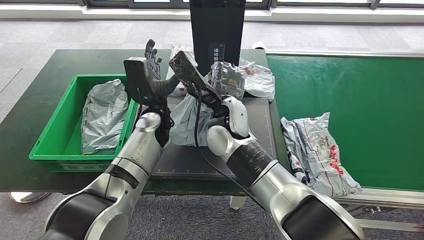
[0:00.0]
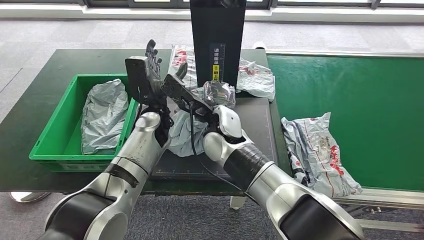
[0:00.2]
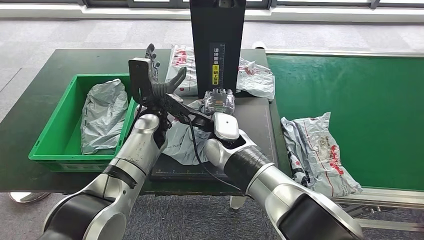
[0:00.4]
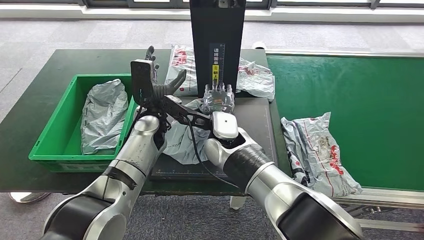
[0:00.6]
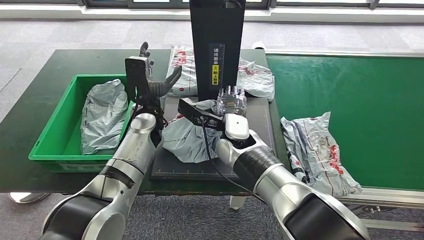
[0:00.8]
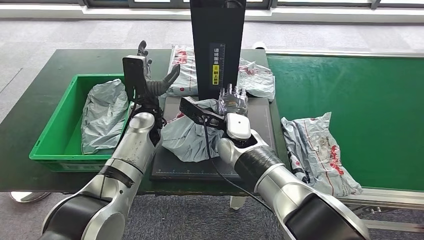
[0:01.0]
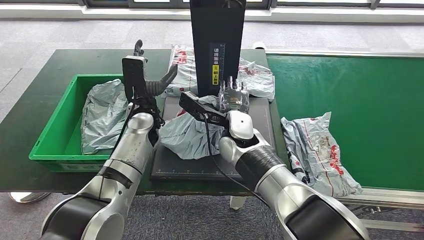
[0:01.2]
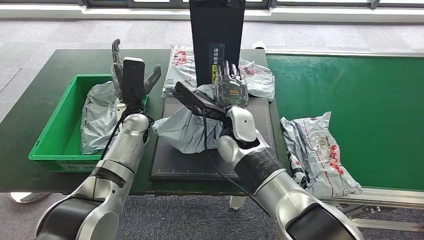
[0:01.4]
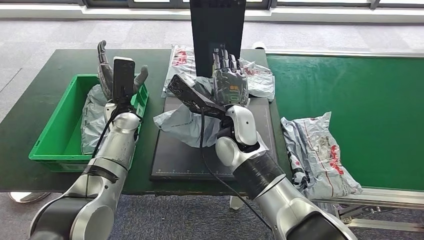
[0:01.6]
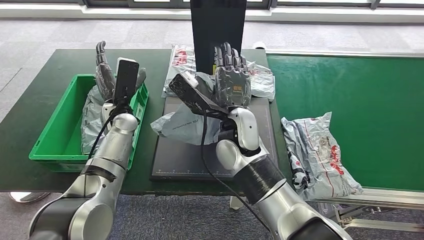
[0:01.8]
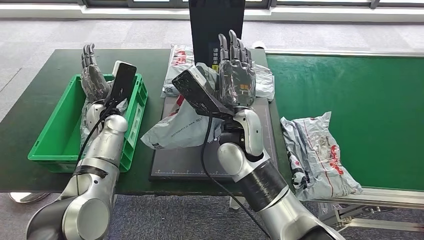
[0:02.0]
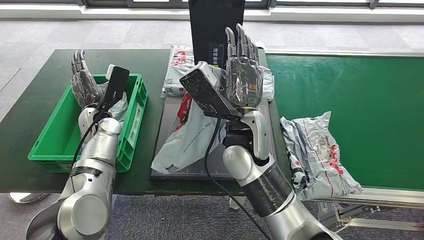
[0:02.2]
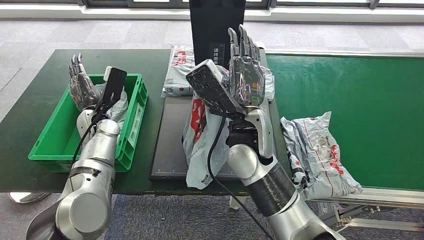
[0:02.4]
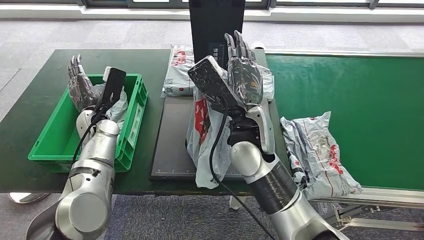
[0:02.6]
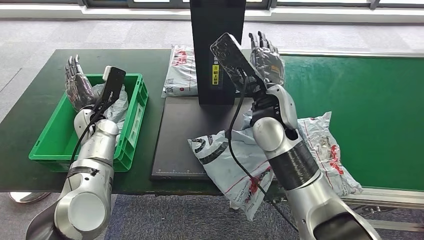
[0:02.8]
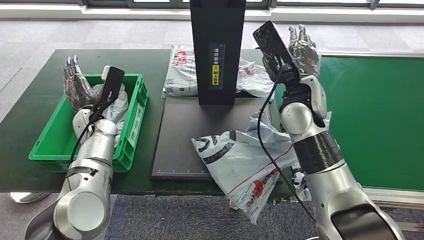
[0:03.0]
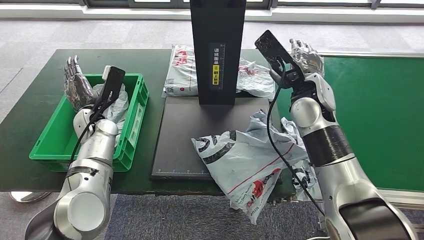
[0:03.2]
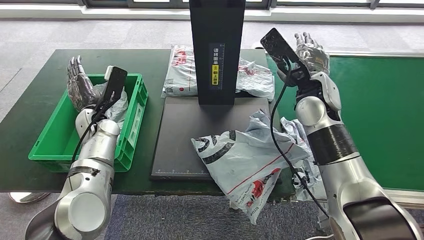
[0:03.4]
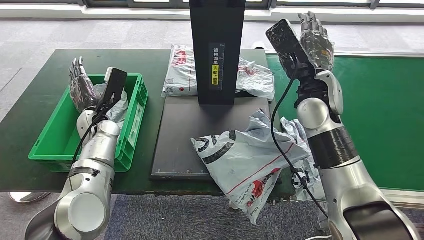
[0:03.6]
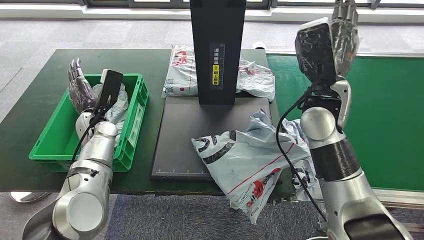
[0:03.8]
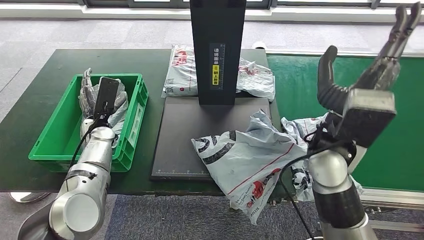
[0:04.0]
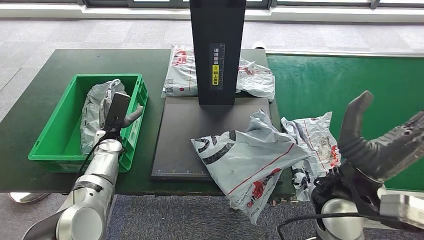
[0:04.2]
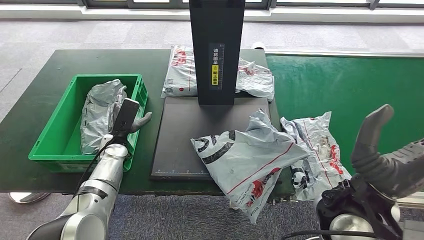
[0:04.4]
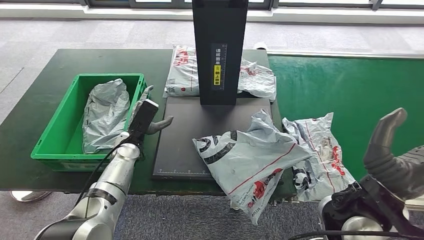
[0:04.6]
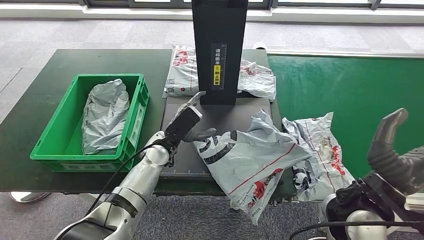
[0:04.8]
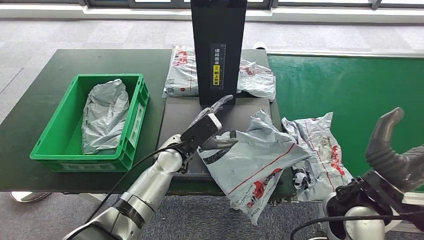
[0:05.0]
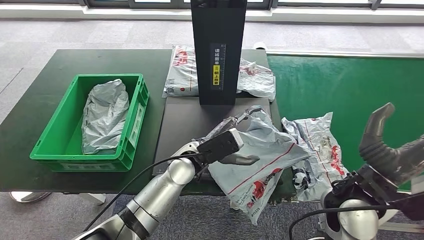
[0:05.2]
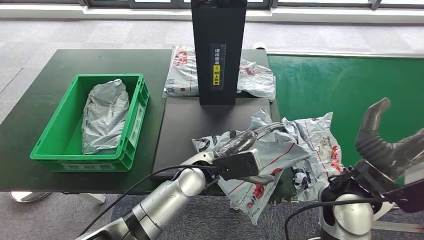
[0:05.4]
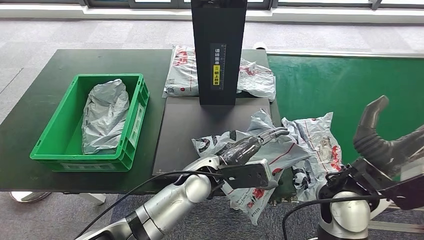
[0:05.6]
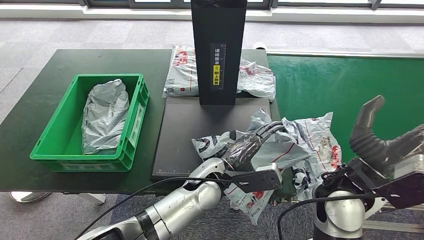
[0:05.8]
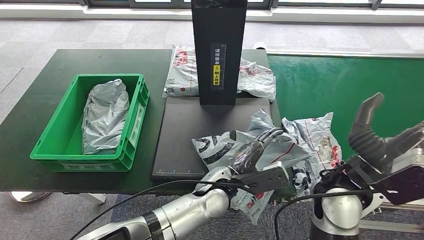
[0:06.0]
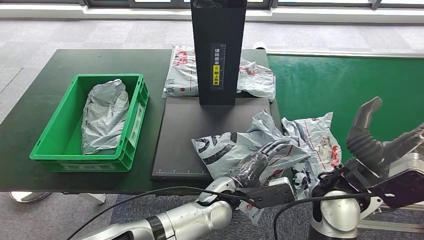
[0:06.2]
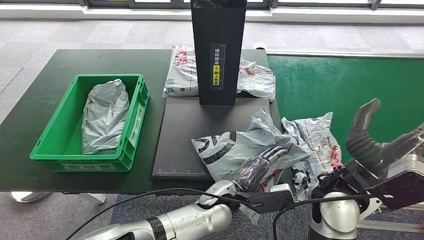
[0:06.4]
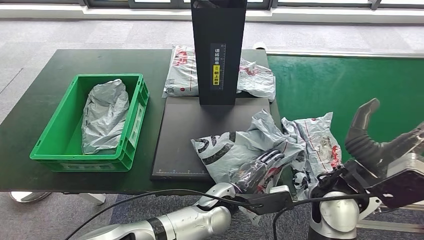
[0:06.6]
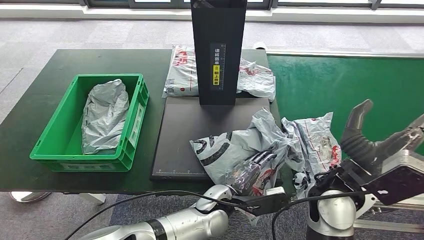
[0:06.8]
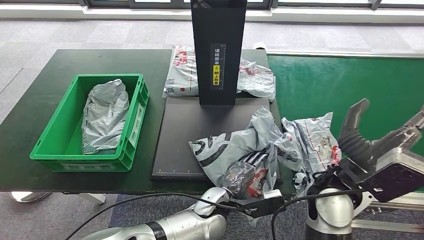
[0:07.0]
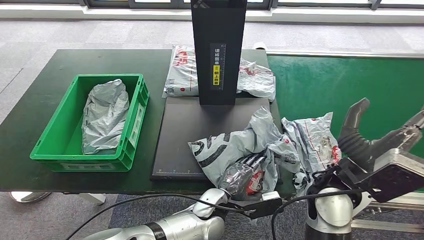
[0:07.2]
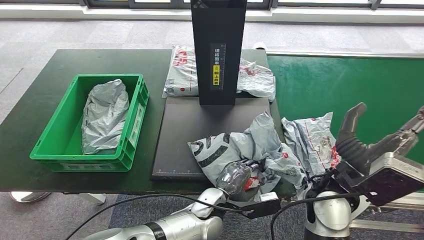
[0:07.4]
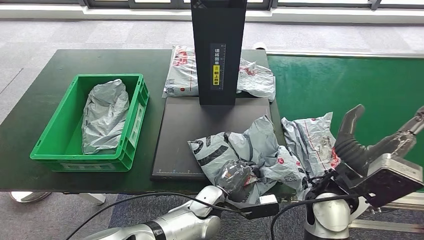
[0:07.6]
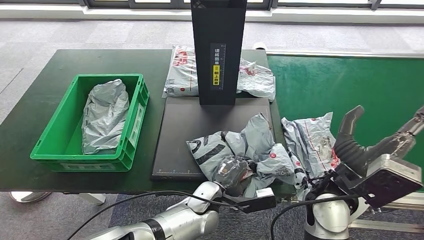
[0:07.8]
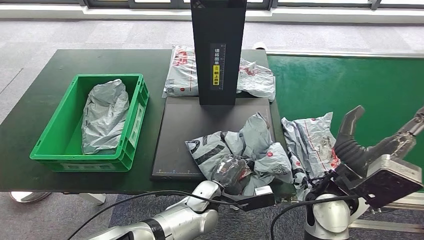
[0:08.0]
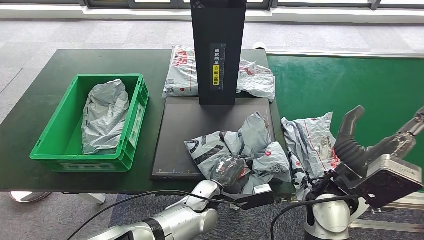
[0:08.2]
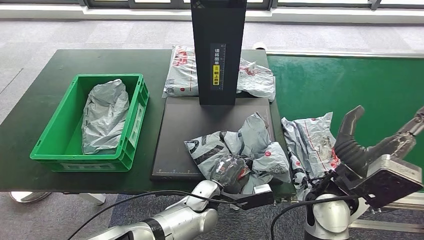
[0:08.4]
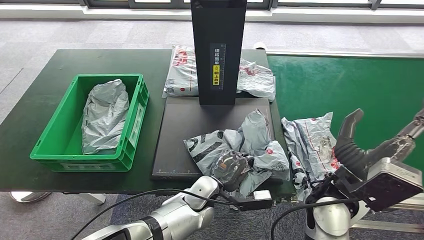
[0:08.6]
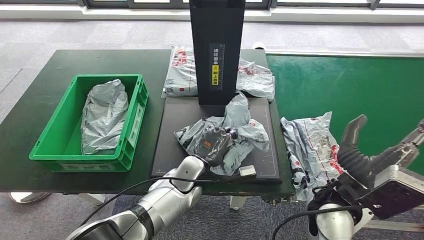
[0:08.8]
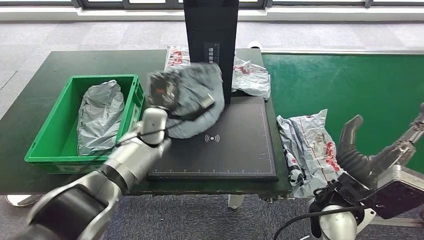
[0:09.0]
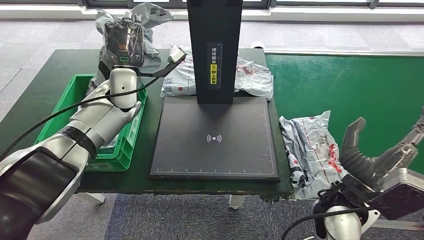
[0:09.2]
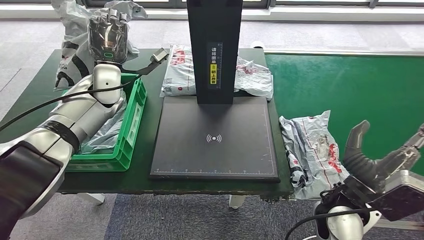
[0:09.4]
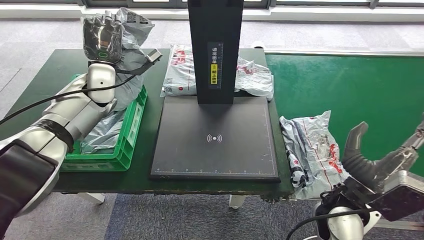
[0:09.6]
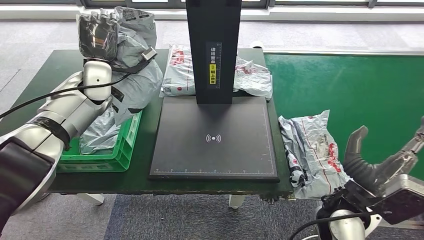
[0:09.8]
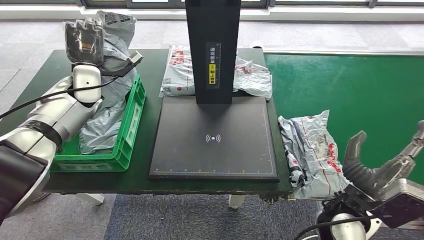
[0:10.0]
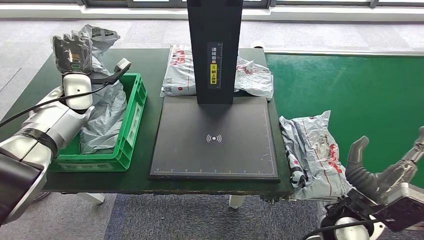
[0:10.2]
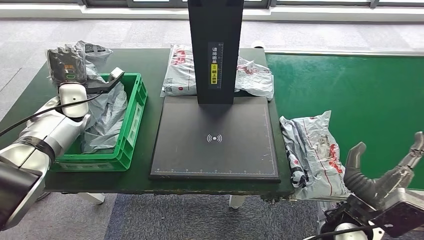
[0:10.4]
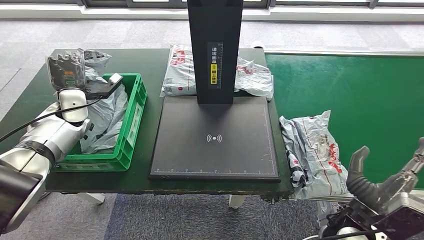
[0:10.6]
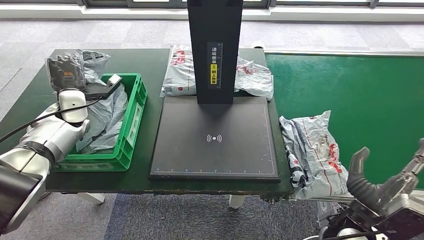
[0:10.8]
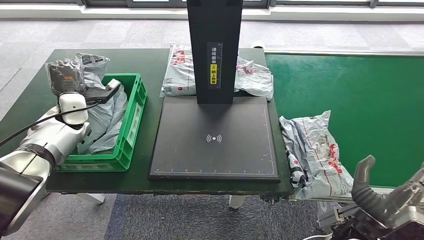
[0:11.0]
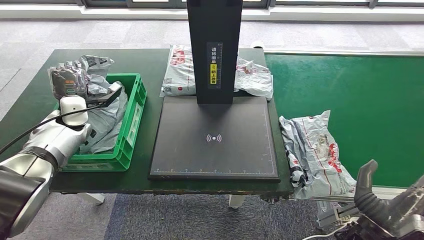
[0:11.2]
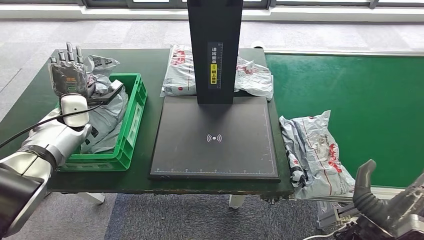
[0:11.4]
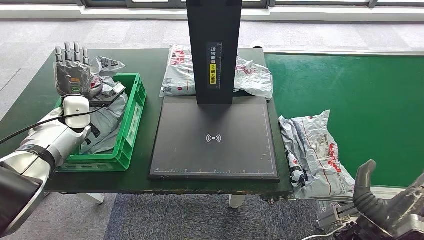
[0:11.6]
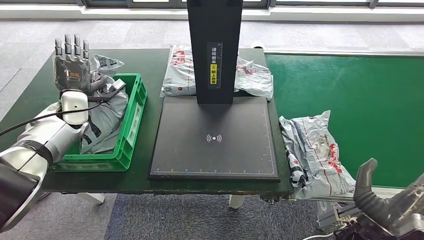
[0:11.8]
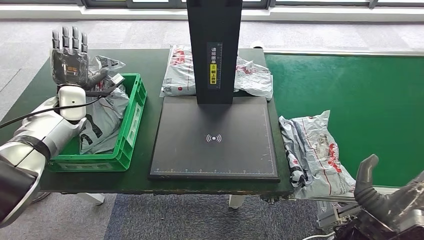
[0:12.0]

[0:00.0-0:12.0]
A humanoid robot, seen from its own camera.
Step, 0:01.4 to 0:09.2: Pick up the parcel from the inbound machine.
0:06.0 to 0:07.6: The left hand heads downward, covering approximately 5 cm.
0:10.4 to 0:12.0: There are only small adjustments of the hands.

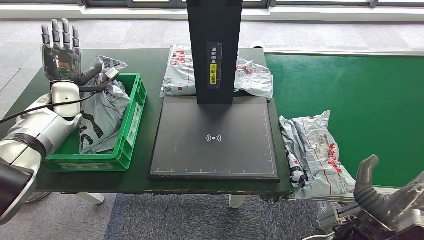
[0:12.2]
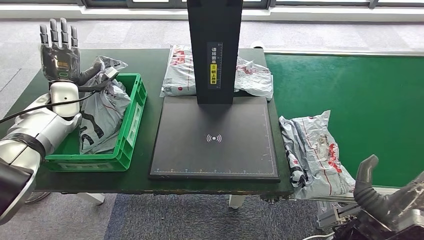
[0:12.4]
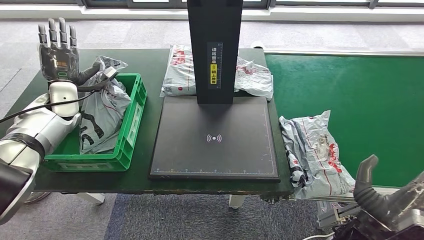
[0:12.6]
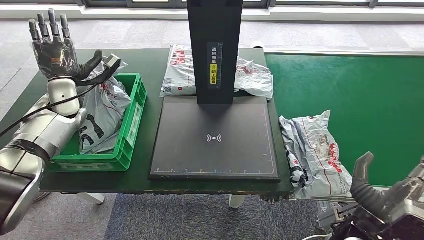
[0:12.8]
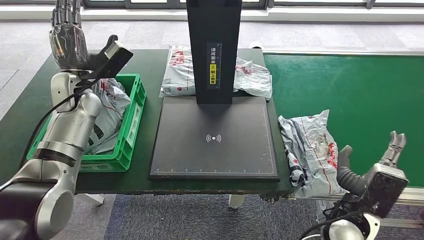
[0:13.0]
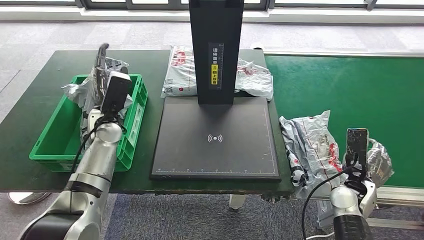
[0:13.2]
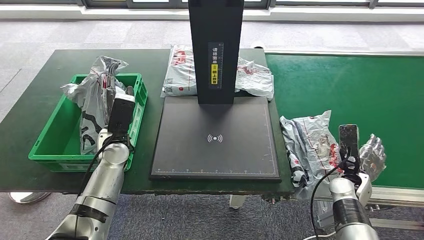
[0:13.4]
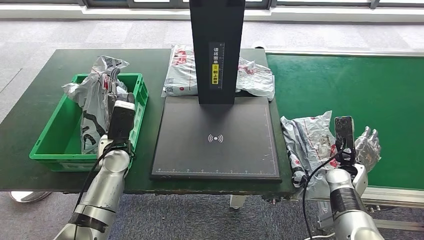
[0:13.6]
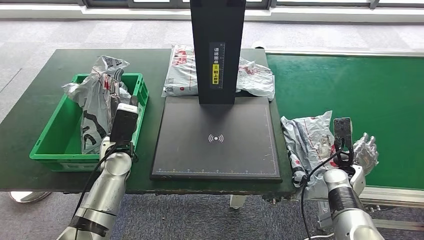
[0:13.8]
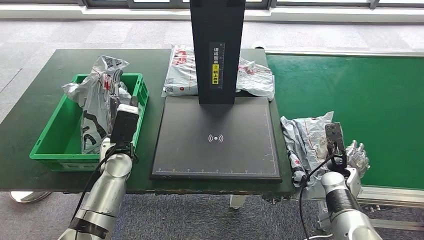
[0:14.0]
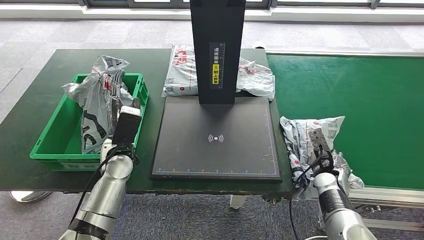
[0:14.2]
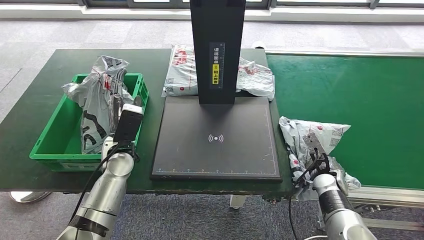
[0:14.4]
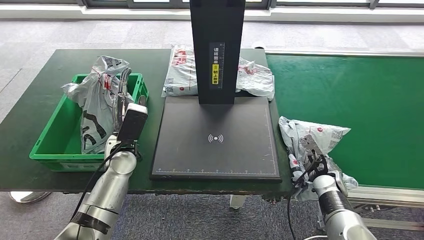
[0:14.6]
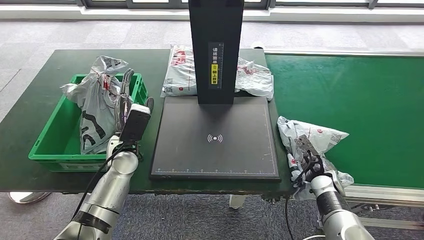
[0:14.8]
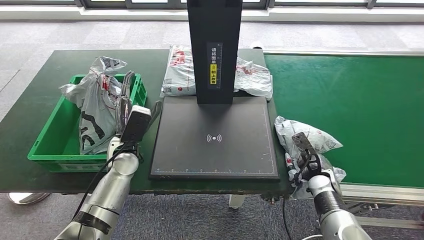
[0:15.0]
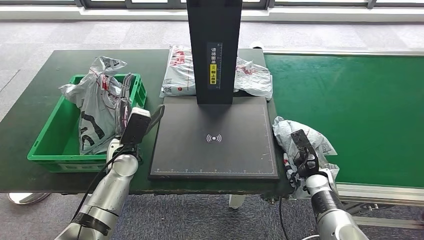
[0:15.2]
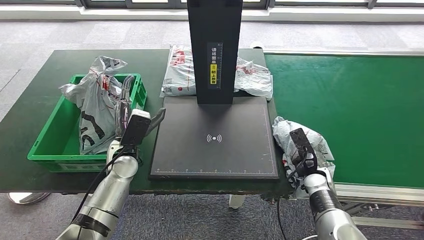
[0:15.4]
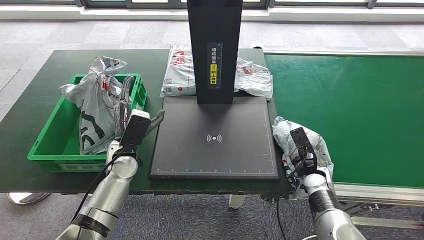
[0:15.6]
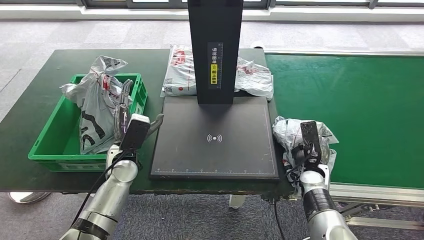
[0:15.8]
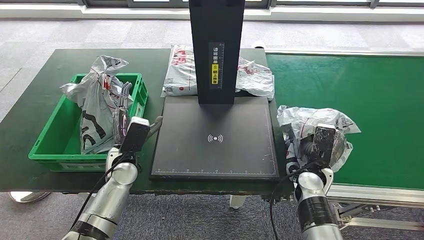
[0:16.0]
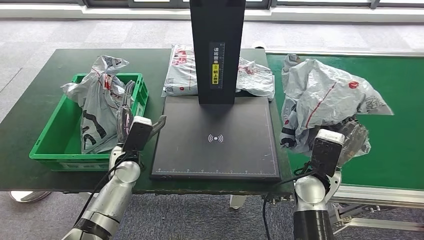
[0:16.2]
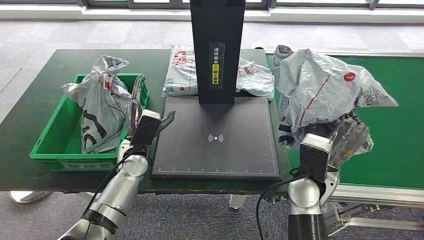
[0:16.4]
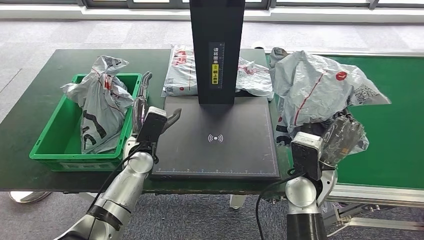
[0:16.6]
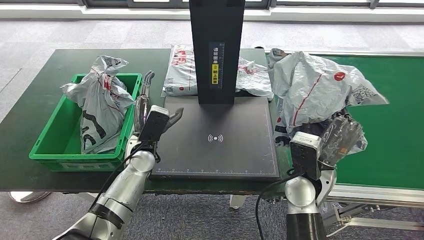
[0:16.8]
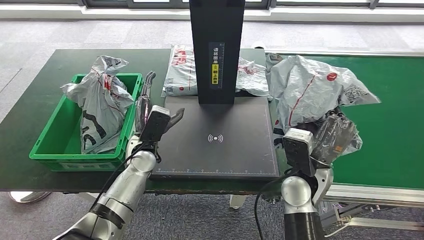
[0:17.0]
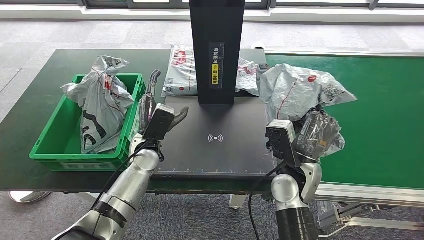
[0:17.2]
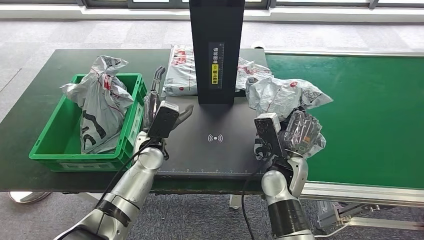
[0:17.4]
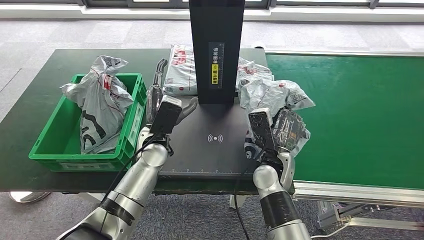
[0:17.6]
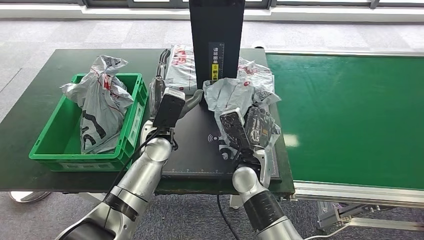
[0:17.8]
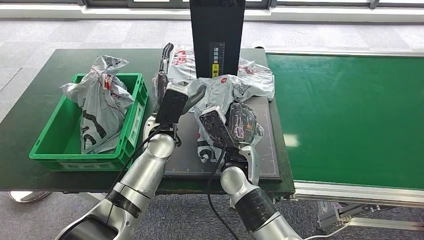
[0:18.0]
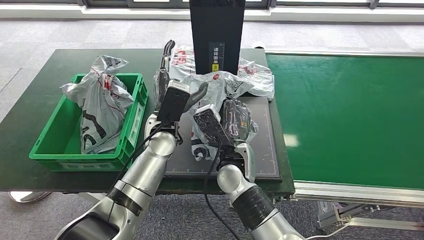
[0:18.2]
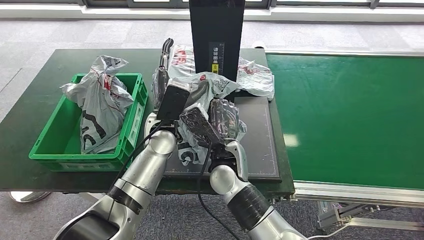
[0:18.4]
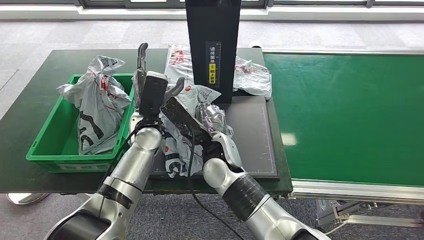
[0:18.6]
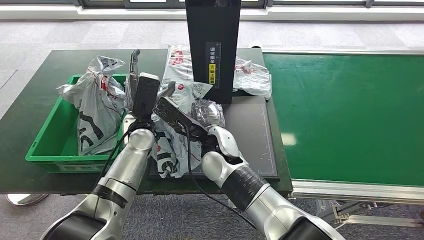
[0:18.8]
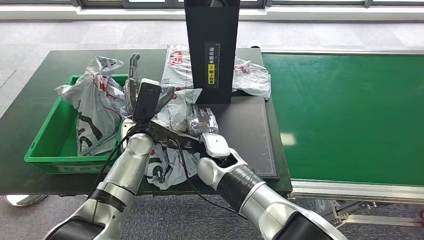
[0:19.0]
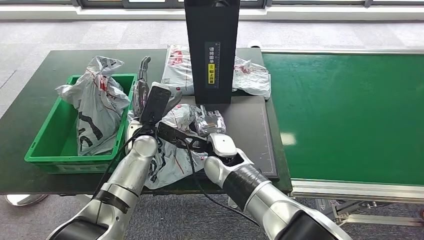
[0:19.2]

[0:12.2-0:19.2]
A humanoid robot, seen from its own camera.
Step, 0:13.2 to 0:16.4: Pick up the parcel from the conveyor belt.
0:13.6 to 0:15.0: The right hand goes approximately 5 cm to the left.
